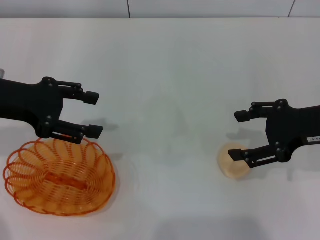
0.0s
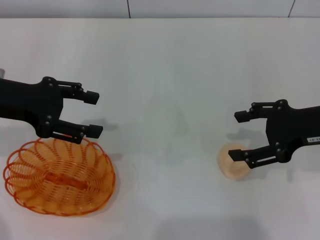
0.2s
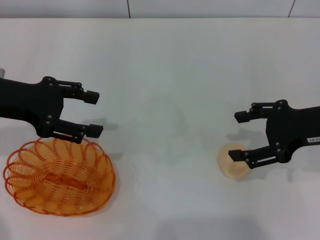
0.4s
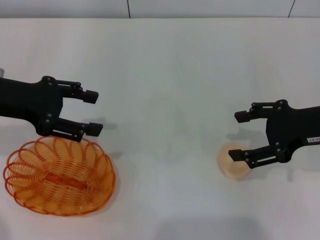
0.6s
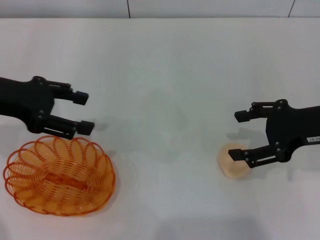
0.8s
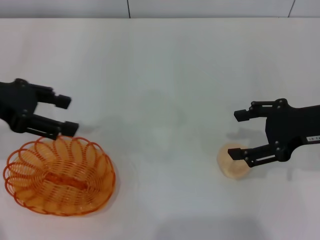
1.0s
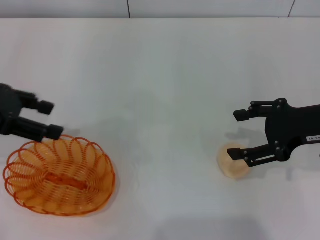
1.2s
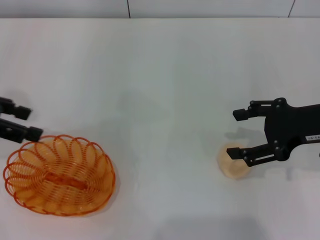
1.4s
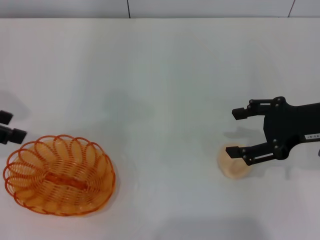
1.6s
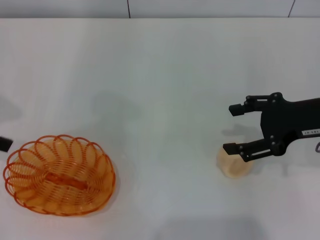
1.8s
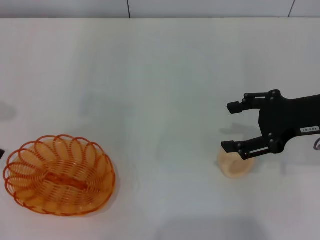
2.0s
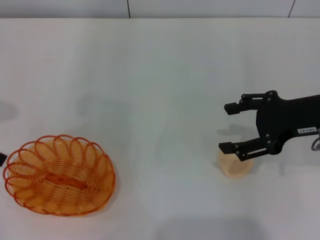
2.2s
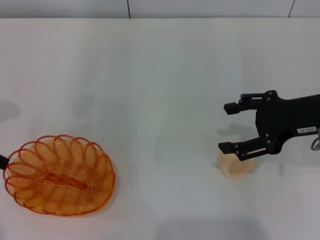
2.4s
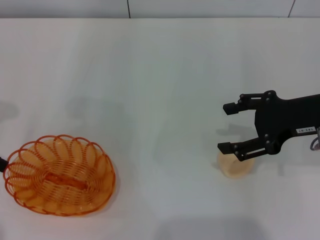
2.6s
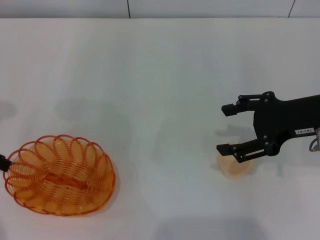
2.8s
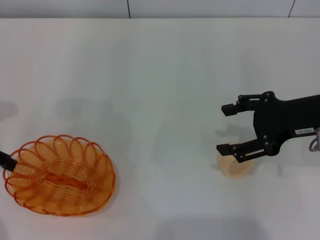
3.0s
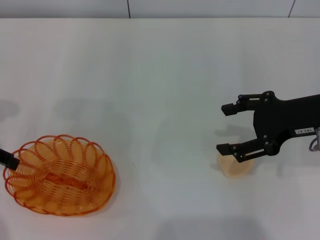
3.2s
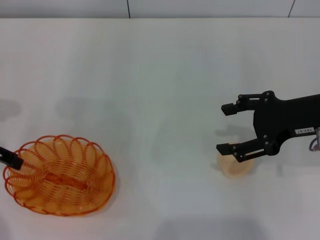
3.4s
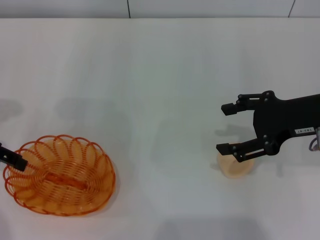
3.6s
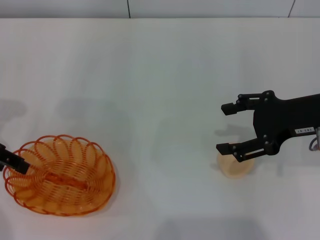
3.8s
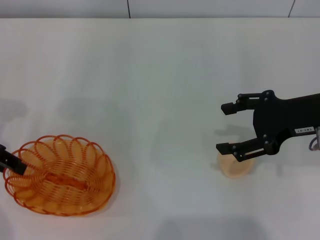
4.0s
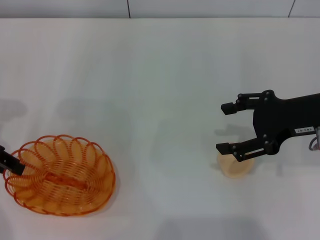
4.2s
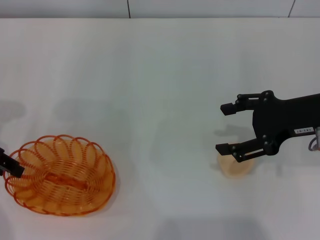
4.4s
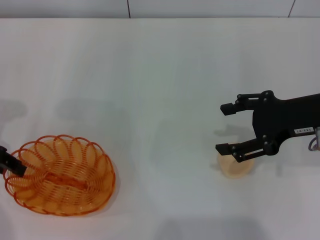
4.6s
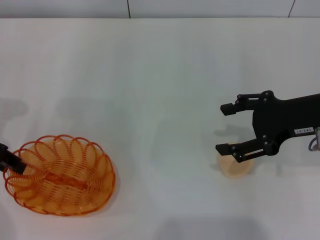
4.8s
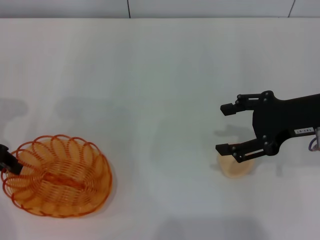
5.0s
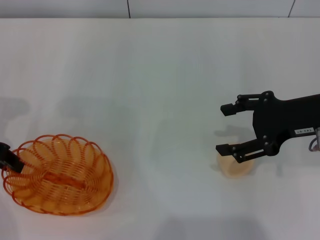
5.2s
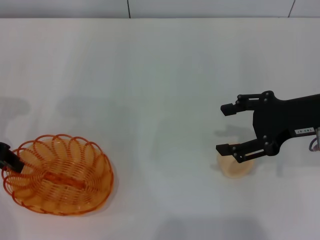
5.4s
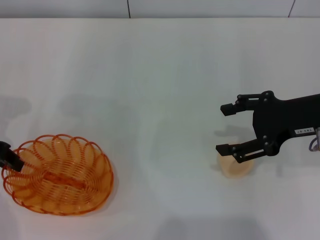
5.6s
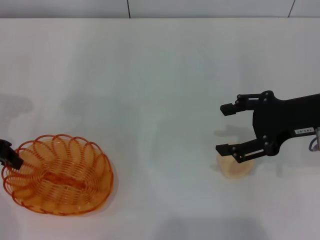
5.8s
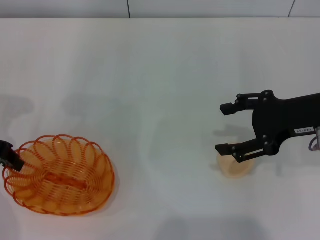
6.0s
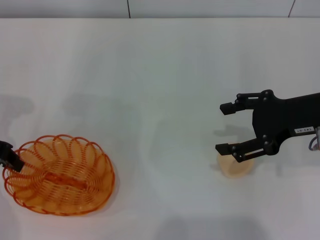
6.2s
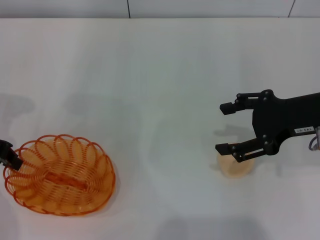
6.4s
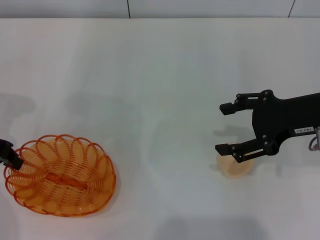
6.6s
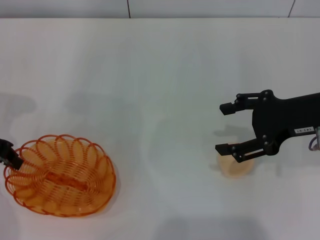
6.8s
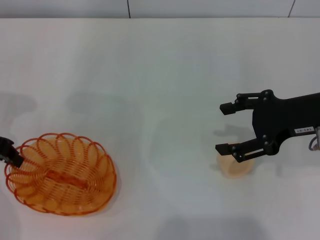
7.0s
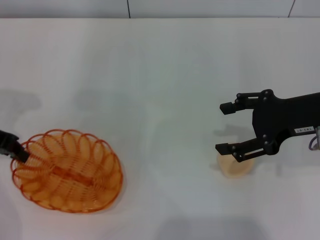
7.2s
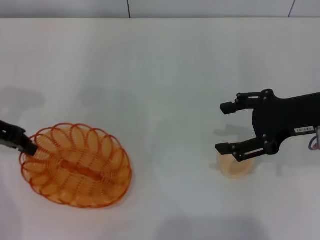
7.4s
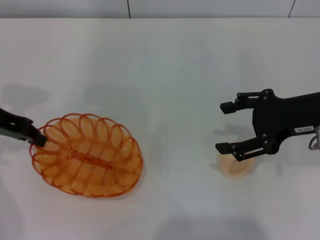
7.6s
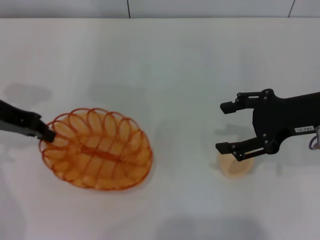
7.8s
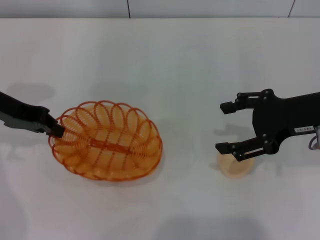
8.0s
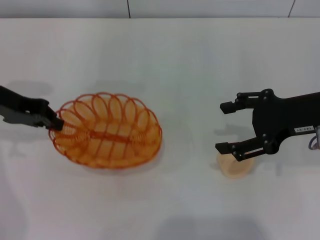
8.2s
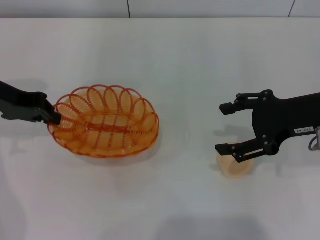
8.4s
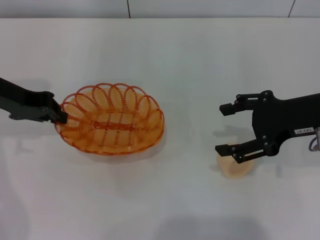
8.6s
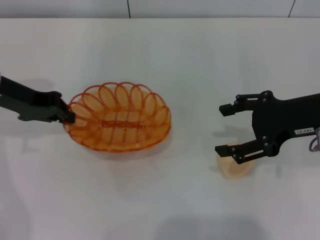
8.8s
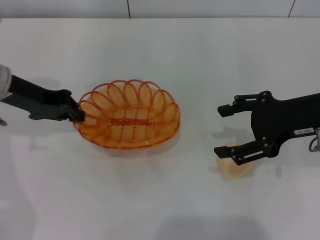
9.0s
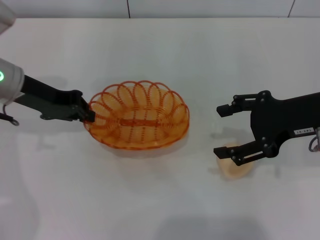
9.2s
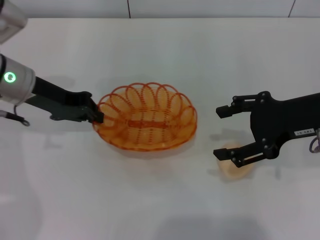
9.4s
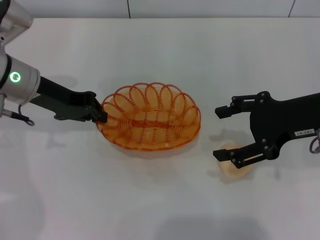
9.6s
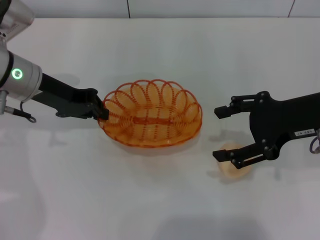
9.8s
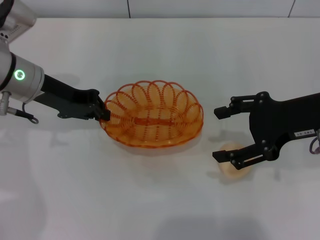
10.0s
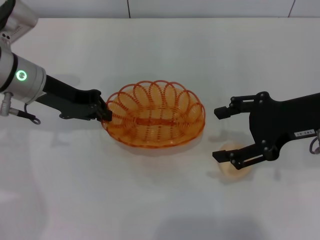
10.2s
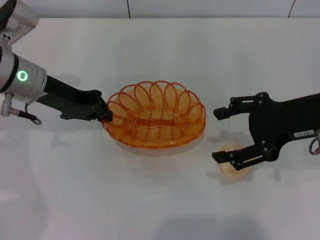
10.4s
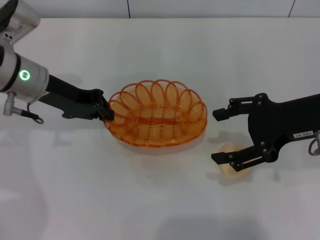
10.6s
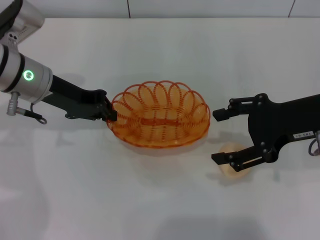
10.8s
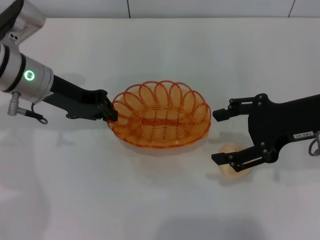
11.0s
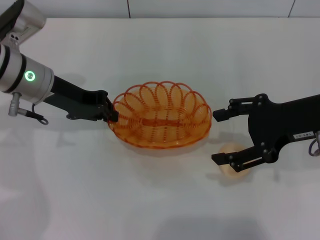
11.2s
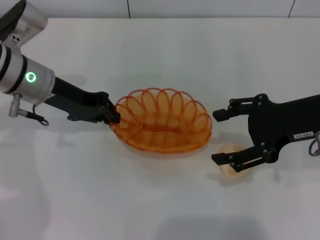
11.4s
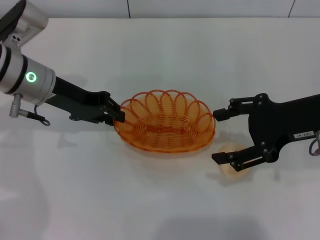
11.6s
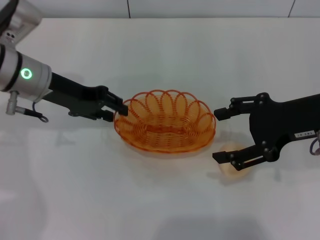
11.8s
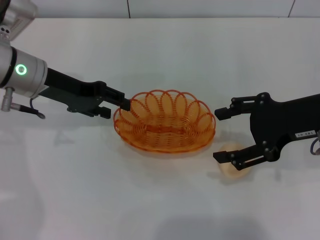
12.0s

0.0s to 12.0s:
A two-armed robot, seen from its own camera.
Step, 0.0s to 9.6s: Pick up the basket with the left gripper.
0.0s to 1.6s: The left gripper moves to the left, about 5 cm.
3.0s to 4.4s: The grippers move only a little.
4.4s to 6.0s: The left gripper closes.
6.0s to 7.6s: The grippers move only a little.
9.0s to 10.4s: The grippers make only small movements.
10.4s to 12.0s: The left gripper opens its fingers.

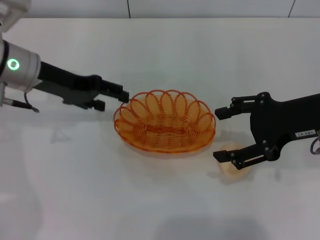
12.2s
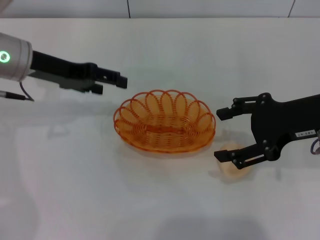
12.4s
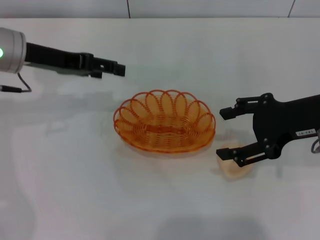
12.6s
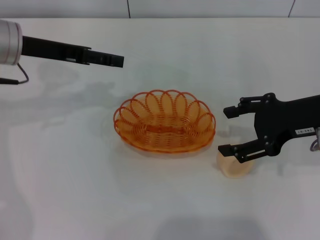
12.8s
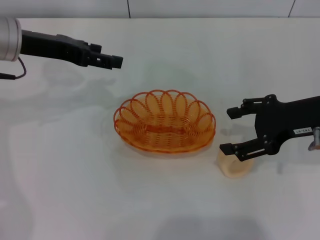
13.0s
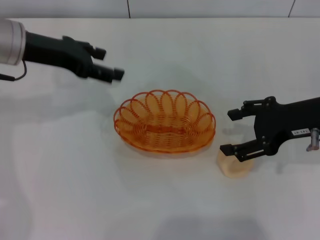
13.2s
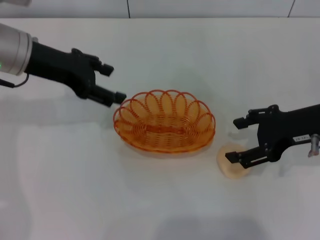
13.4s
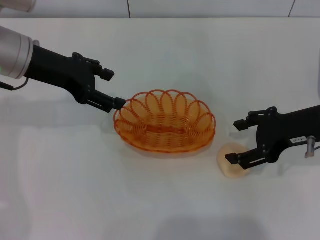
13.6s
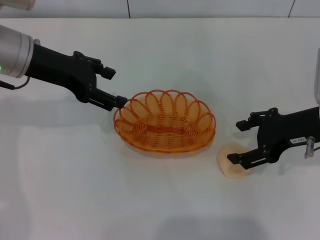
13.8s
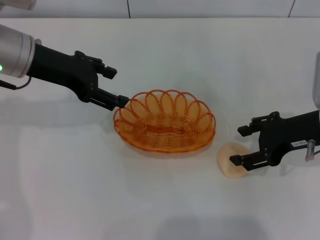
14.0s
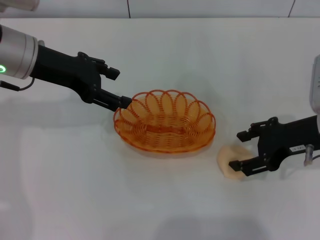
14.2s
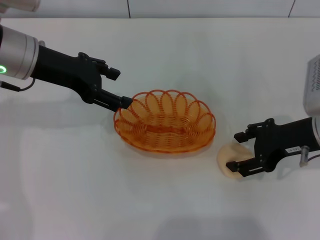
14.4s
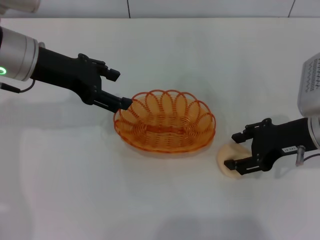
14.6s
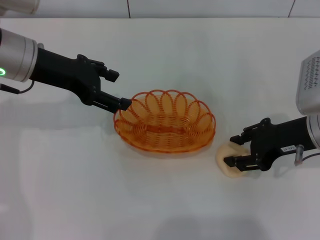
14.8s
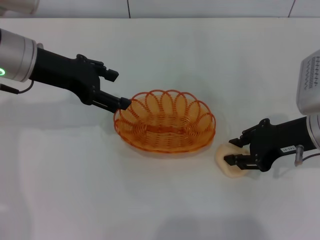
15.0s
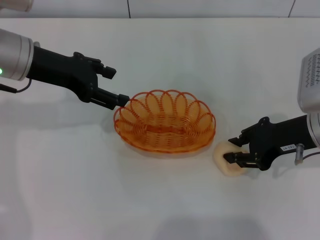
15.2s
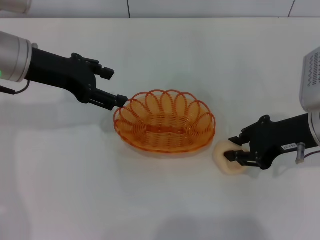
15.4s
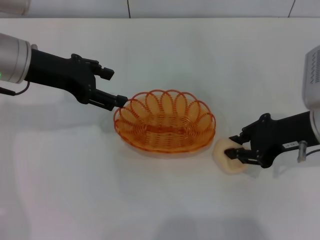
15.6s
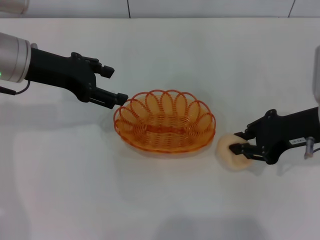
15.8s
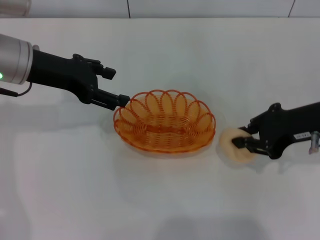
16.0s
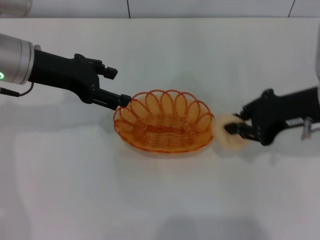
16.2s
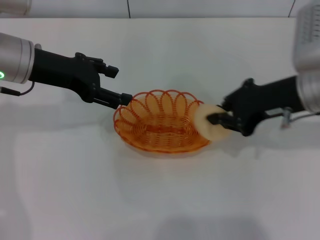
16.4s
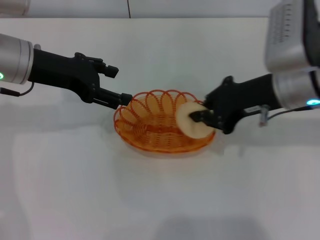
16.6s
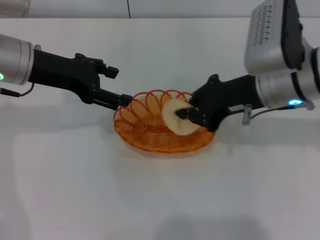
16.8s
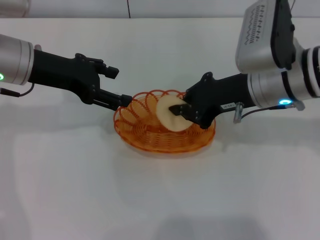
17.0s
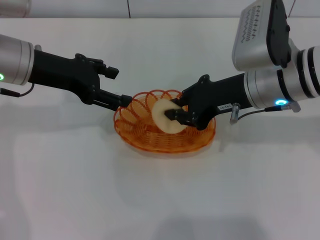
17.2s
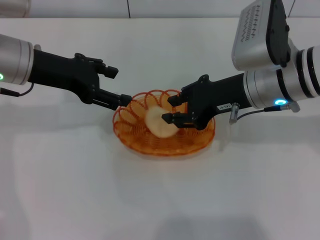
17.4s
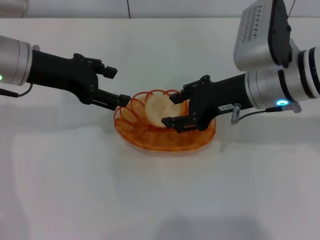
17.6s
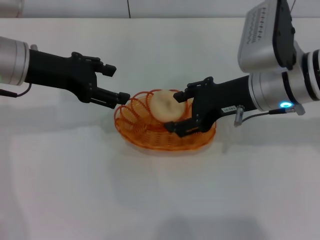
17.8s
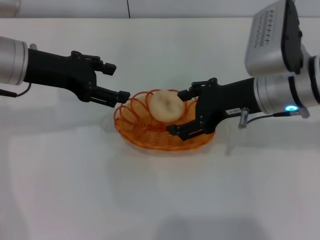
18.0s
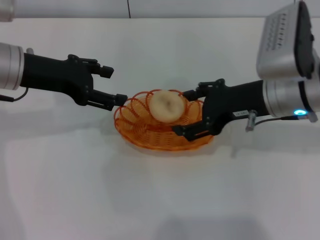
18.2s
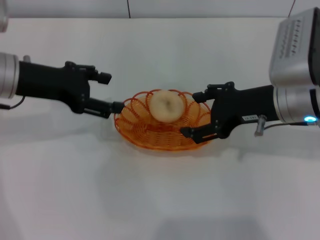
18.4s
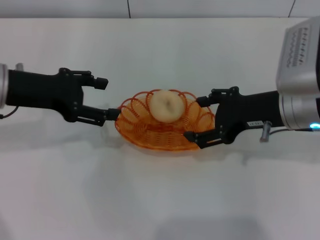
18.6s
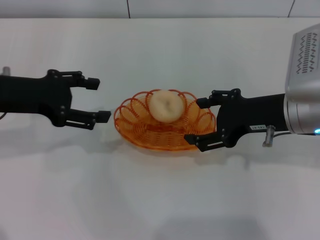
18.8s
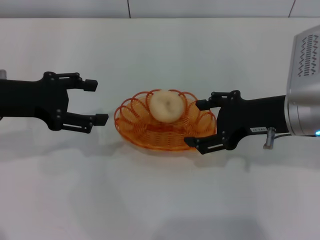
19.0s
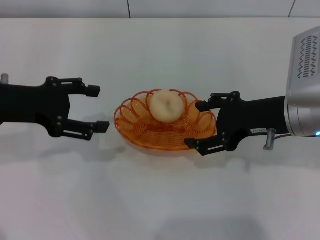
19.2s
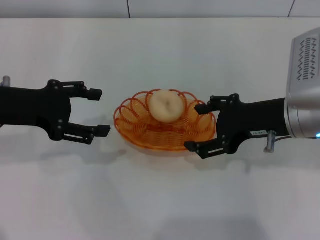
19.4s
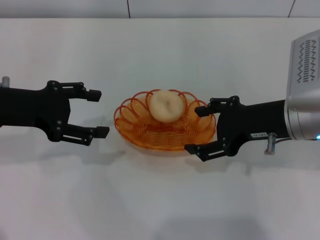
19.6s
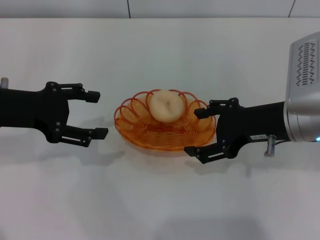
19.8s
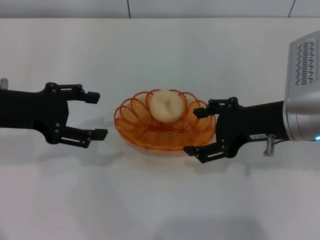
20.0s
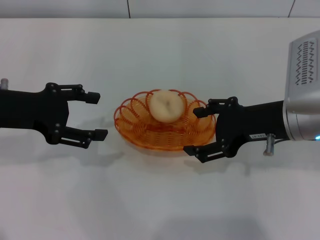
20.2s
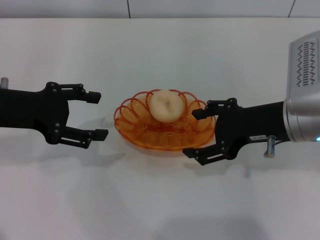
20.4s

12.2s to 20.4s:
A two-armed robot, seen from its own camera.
Step, 12.4s to 16.2s: Pick up the egg yolk pastry with the right gripper.
Step, 16.4s to 18.6s: Place the egg yolk pastry into the basket with the right gripper.
13.8s to 15.4s: The right gripper closes.
15.4s to 17.2s: The right gripper shifts about 10 cm to the left.
17.2s to 18.8s: The right gripper ends up roughly 5 cm from where it was, and opens. The left gripper moves about 5 cm.
18.8s to 20.4s: The grippers stay close to where they were, moving slightly.
